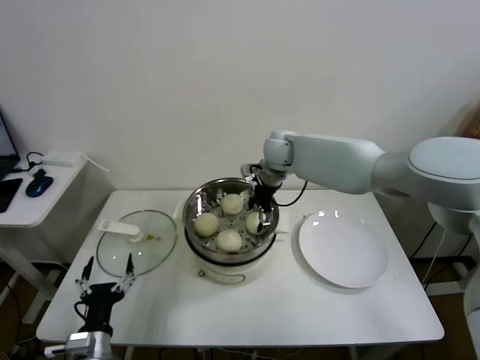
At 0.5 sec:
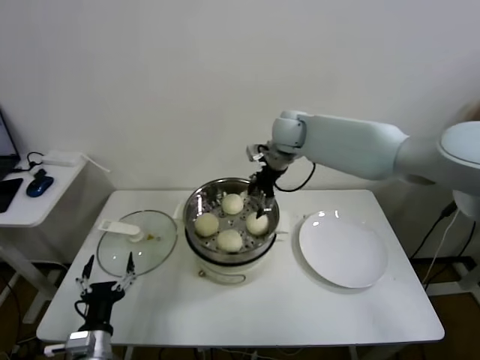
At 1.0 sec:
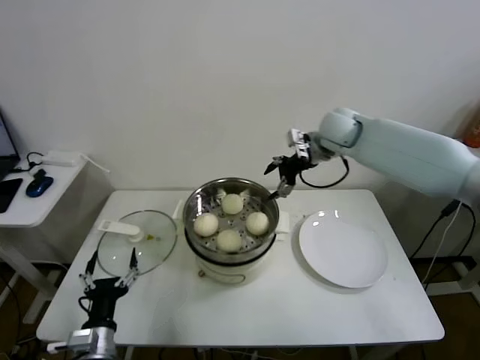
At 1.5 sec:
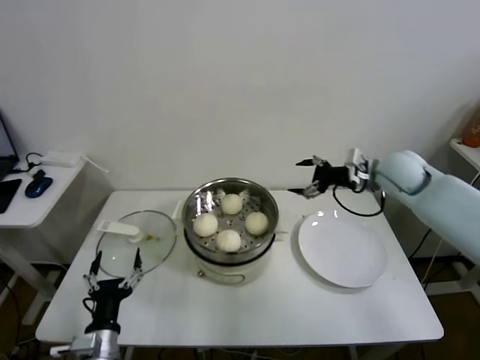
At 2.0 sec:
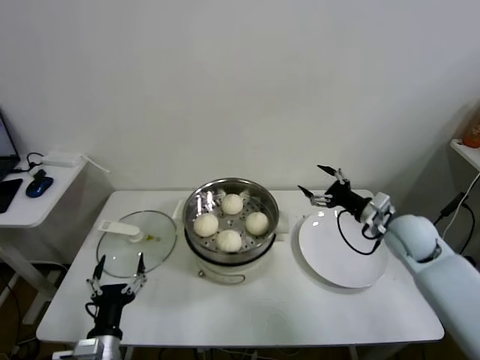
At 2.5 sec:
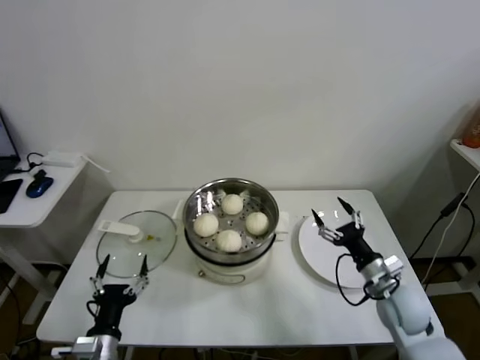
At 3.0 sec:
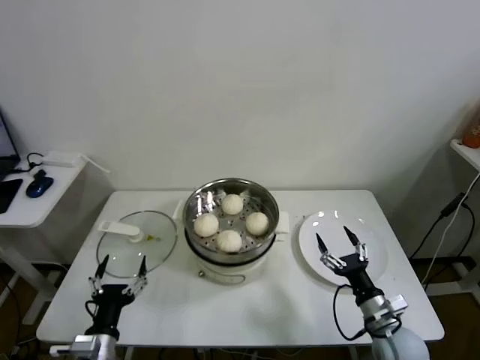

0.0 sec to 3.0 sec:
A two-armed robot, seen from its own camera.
Task of the whole recording: take steamed baozi put them in steamer.
0.0 sec to 1.5 sec: The right gripper heads to the right, covering some 25 cm.
1.5 sec to 3.0 sec: The right gripper heads backward and downward, covering approximately 35 cm.

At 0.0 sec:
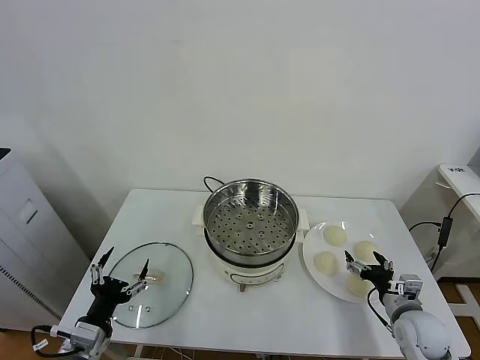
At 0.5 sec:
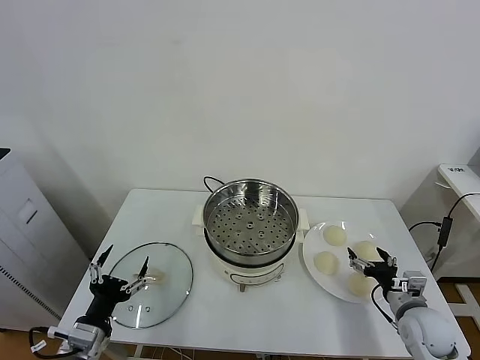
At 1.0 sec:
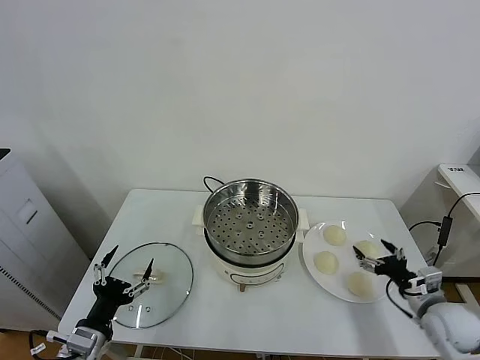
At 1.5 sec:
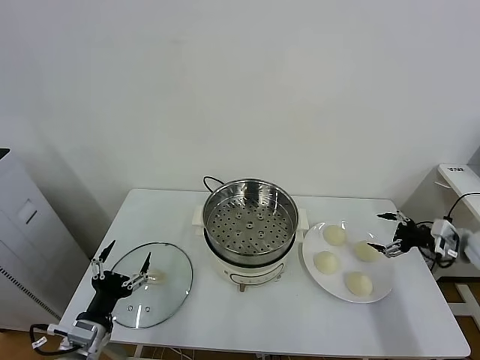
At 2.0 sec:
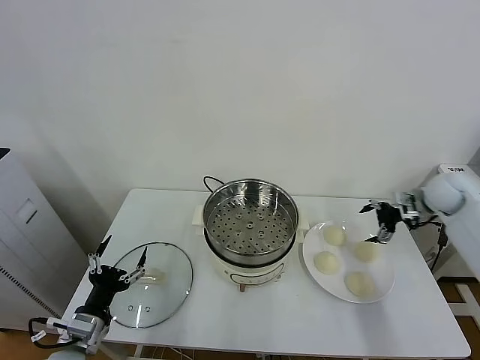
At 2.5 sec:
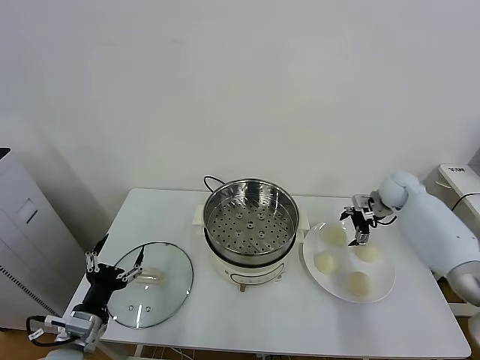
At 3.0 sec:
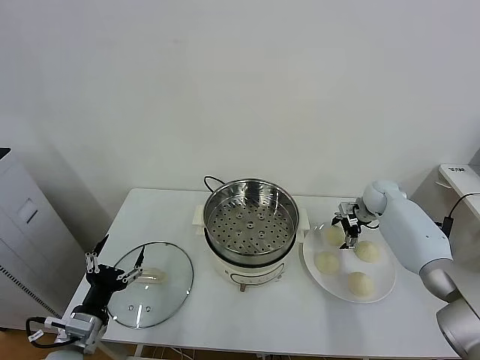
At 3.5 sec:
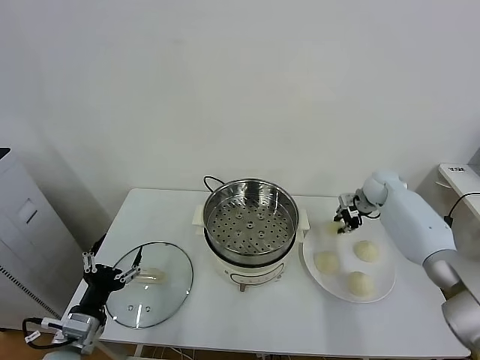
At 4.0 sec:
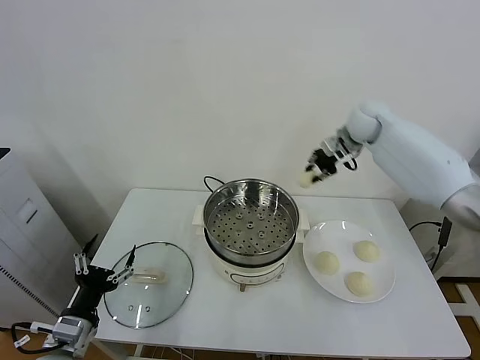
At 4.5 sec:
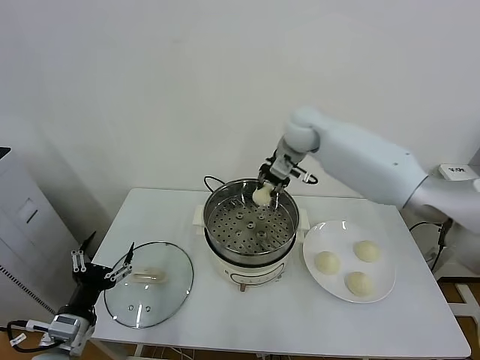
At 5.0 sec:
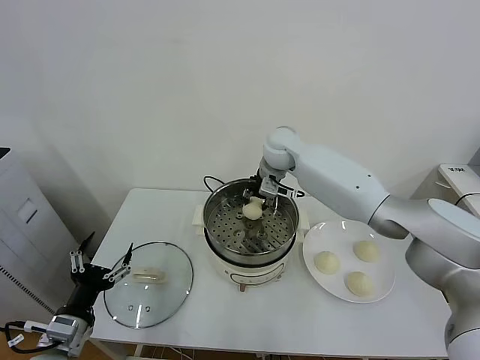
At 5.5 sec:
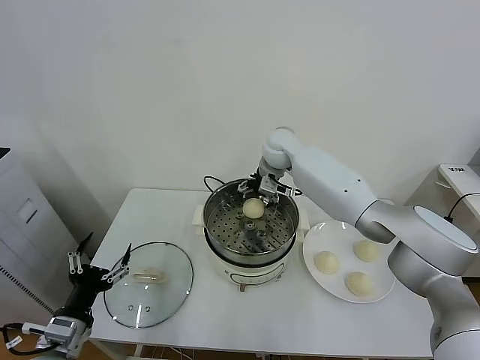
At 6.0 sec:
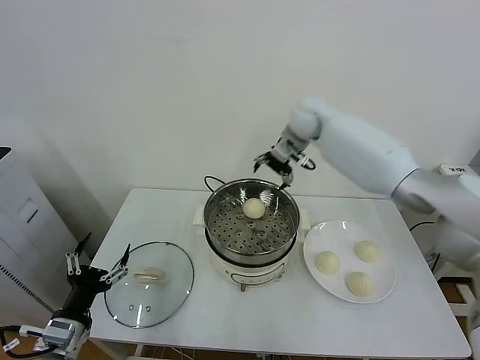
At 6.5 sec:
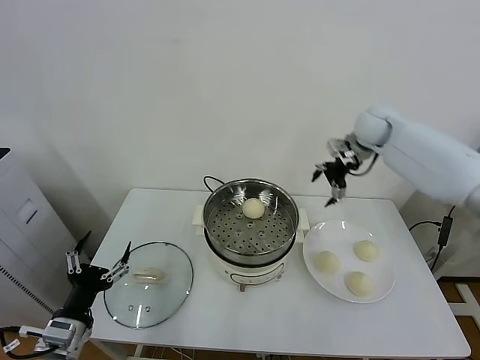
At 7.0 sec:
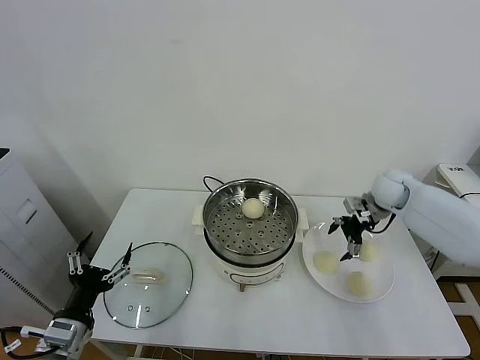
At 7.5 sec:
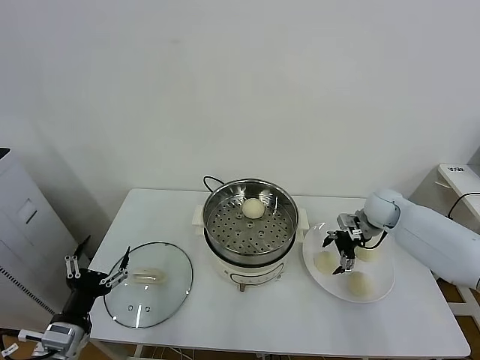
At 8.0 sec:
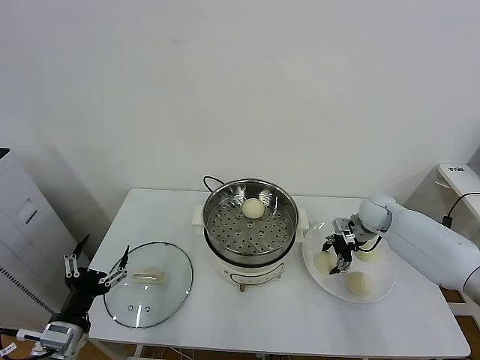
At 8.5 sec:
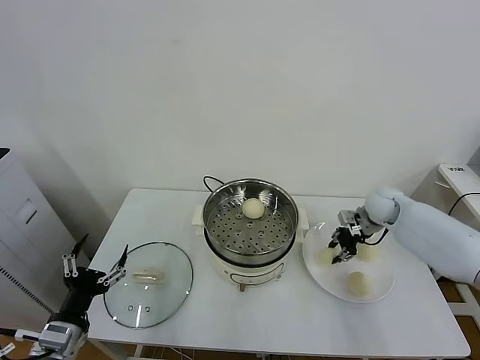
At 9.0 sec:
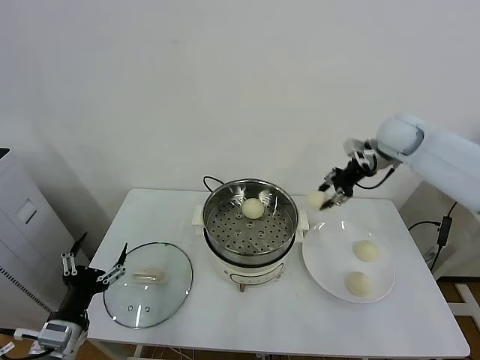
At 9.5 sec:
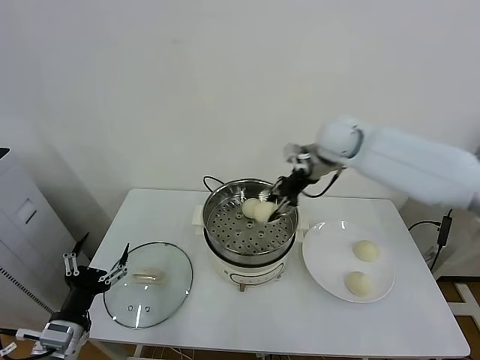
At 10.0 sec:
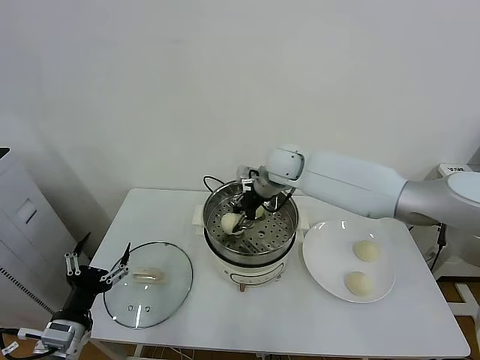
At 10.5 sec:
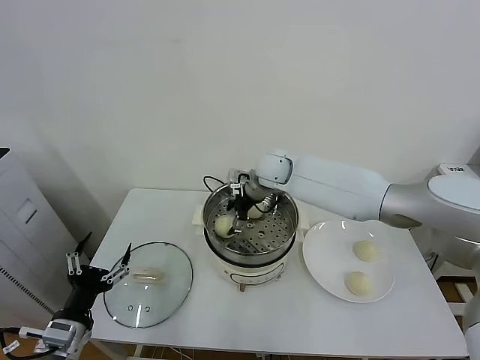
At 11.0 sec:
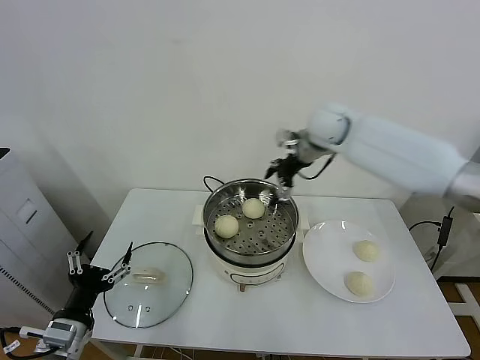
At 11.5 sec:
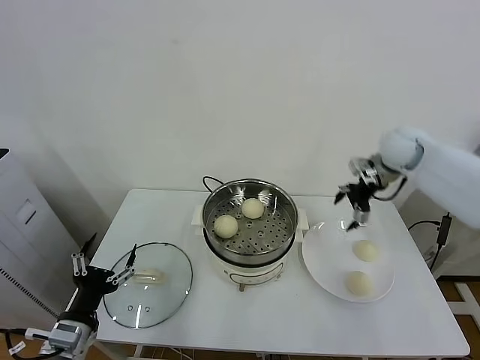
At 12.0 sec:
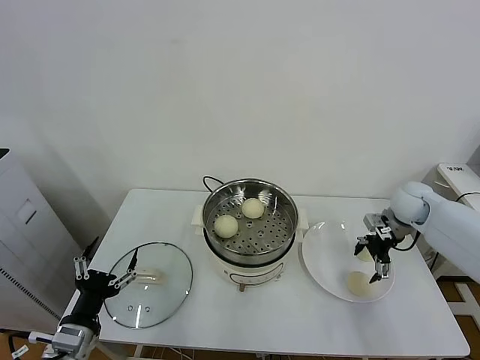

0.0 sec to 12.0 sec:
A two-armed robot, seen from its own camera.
Task of the whole recording: take steamed baozi put them in steamer.
Step, 0.0 sec to 3.0 sec: Grasp the baozi in the plate with right gripper.
Step, 3.5 sec to 5.0 sec: Place the baozi on the steamer with right gripper.
Step, 5.5 sec to 8.0 sec: Grasp the baozi in the plate with right gripper.
Step, 8.5 sec to 10.5 sec: Place the baozi on the steamer with right gripper.
2.0 sec to 4.0 sec: The right gripper shifts approximately 25 cm to the left, upward and forward, and closes its fingers.
4.0 sec to 6.0 sec: The right gripper moves to the left, about 10 cm, and opens its fingers.
6.0 sec to 8.0 sec: The right gripper moves downward, to the right and backward, roughly 30 cm.
8.0 sec to 10.0 sec: The right gripper travels to the left and upward by approximately 30 cm, and closes up.
10.0 sec to 12.0 sec: The right gripper travels to the right by some 30 cm, and opens.

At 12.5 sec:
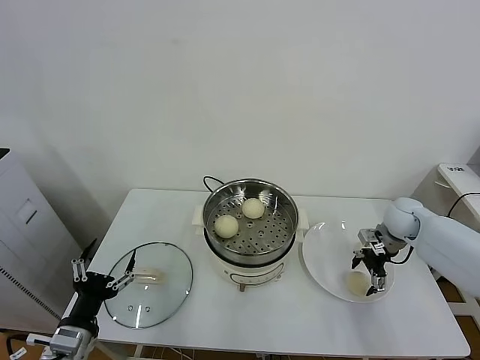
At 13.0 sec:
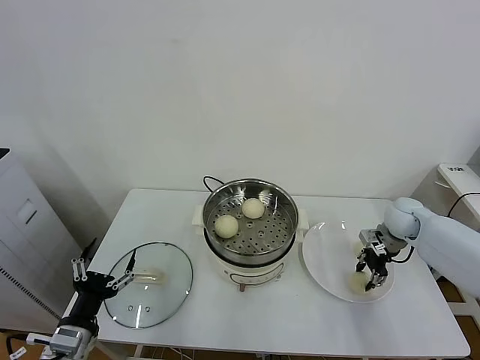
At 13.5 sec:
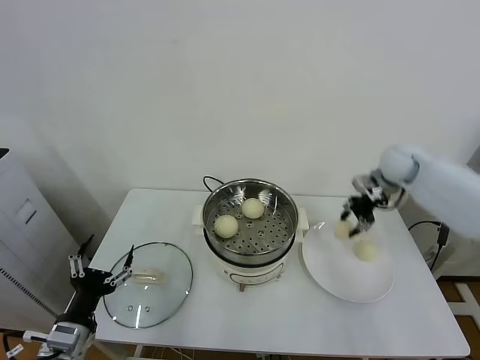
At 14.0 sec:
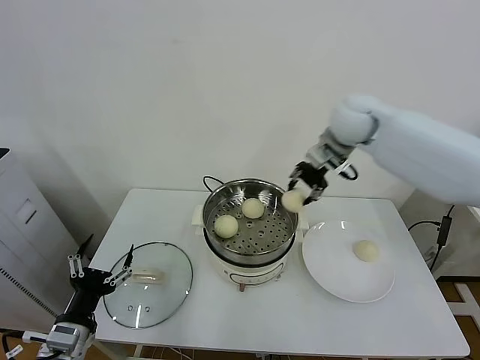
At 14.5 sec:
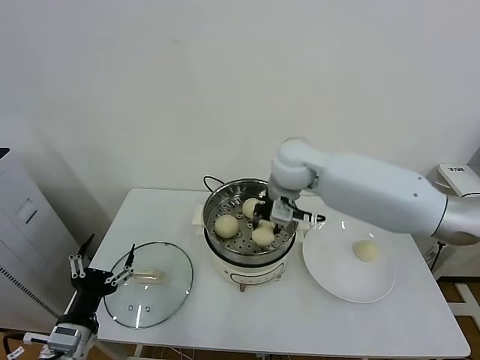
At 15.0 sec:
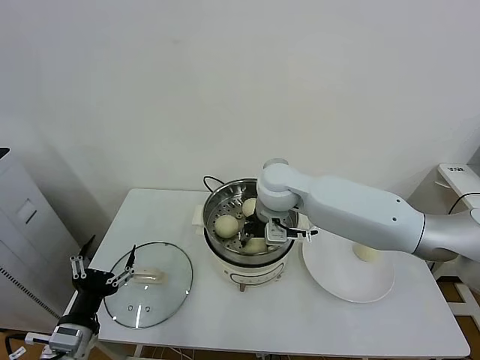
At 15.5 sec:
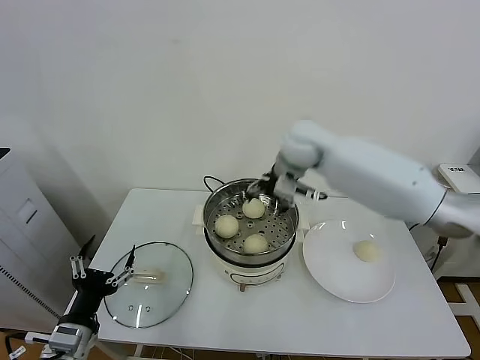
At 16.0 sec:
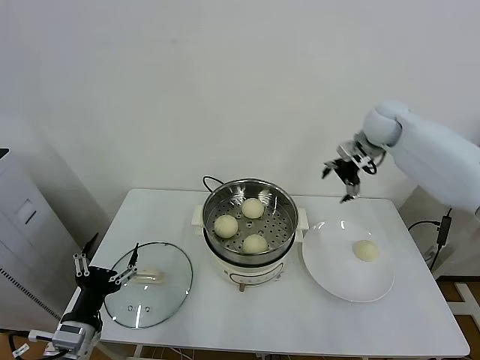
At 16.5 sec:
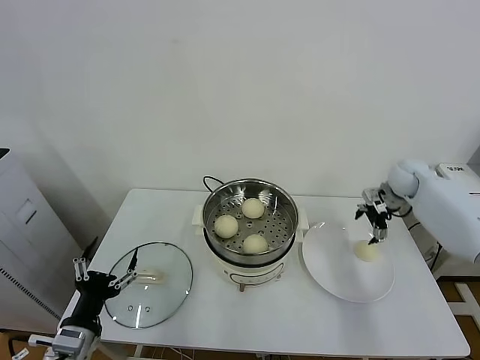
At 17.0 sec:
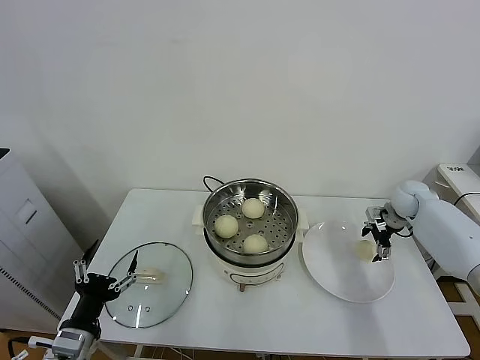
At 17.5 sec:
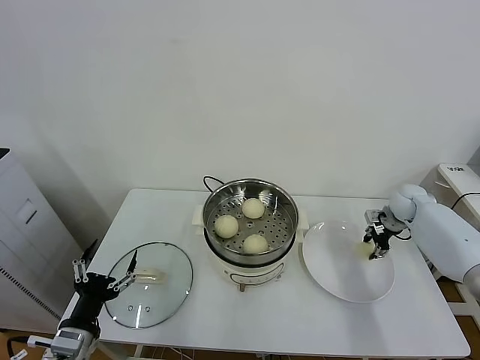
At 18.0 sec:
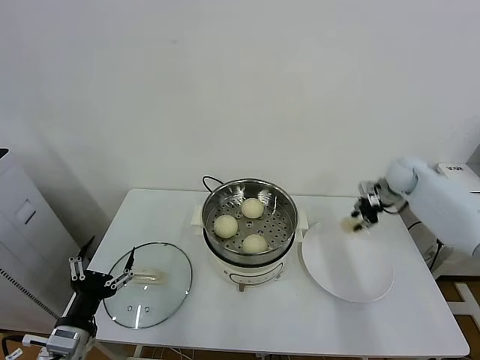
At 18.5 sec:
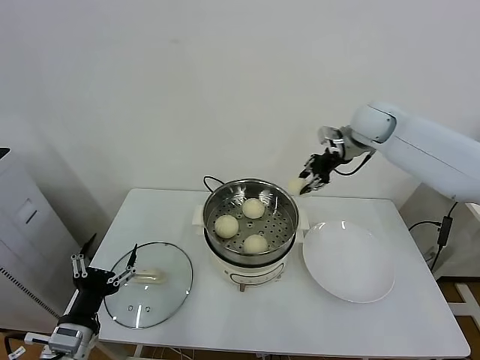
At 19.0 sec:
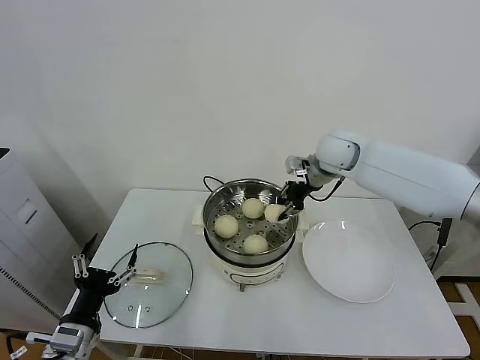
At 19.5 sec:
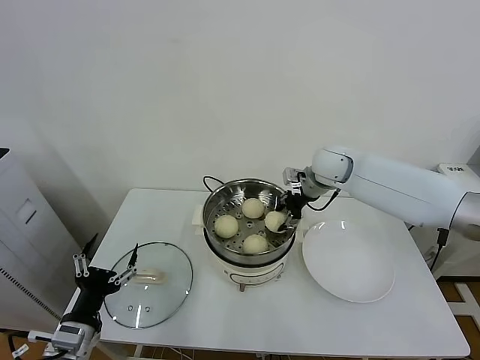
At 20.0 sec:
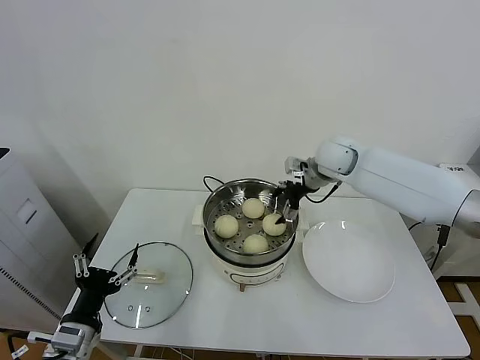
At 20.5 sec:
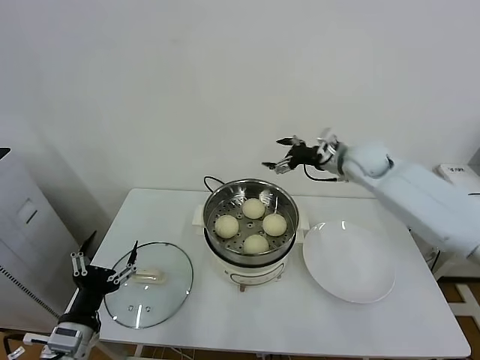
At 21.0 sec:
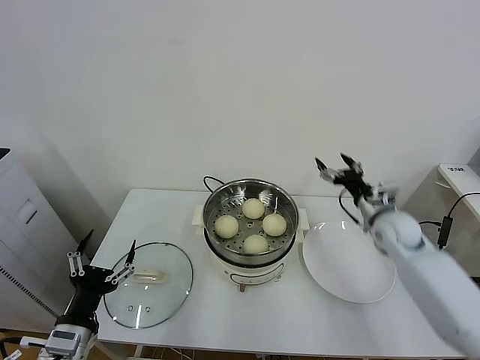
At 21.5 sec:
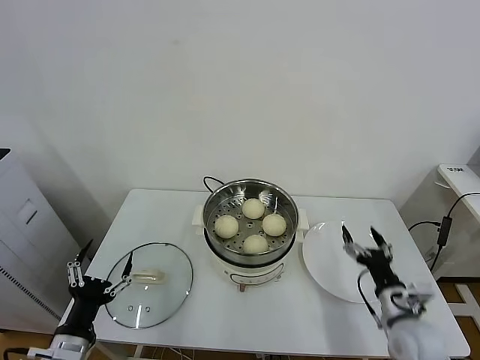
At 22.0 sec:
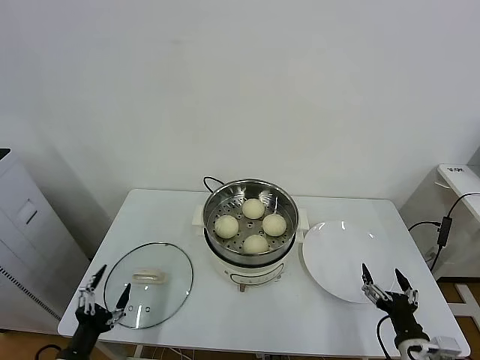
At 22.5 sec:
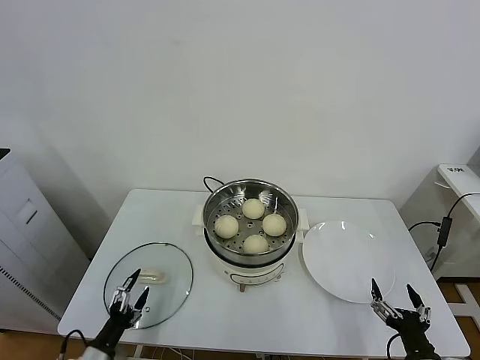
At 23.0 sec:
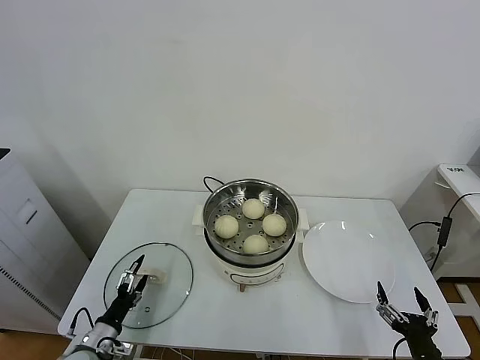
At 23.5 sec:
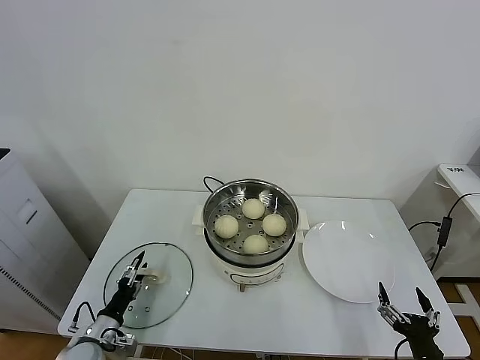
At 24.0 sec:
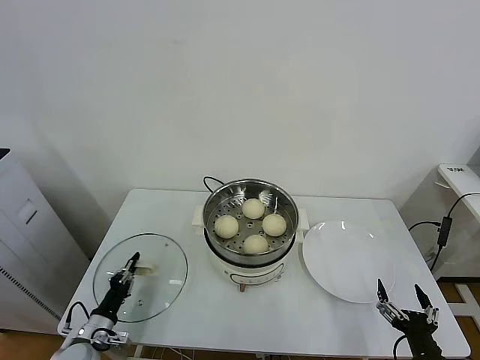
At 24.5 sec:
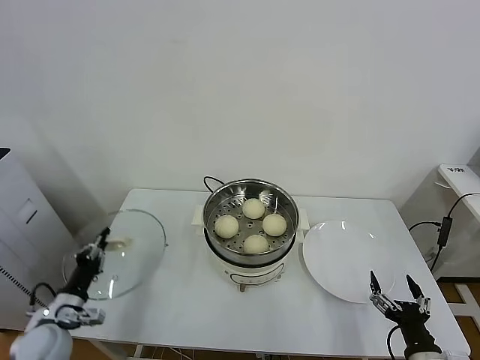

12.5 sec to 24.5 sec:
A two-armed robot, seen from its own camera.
Task of the whole recording: take steamed baozi put them in steamer.
Step, 13.0 sec to 15.0 sec: Place the baozi on the steamer with right gripper.
Step, 15.5 sec to 17.5 sec: Grasp the baozi in the plate with right gripper.
Step, 18.0 sec to 19.5 sec: Place the baozi on the steamer with right gripper.
Step, 20.0 sec to 24.0 sec: Grasp the pot lid with left gripper.
12.5 sec to 14.5 sec: The right gripper heads to the left and upward, covering some 35 cm, and closes up.
14.5 sec to 16.5 sec: The right gripper travels to the right by approximately 35 cm, and opens up.
16.5 sec to 18.5 sec: The right gripper is displaced upward and to the left by some 20 cm, and closes.
18.5 sec to 20.5 sec: The right gripper shifts about 10 cm downward, and opens up.
20.5 sec to 22.5 sec: The right gripper heads backward and downward, covering approximately 50 cm; the left gripper travels downward by about 15 cm.
22.5 sec to 24.5 sec: The left gripper shifts about 10 cm forward and upward, and closes its fingers.
